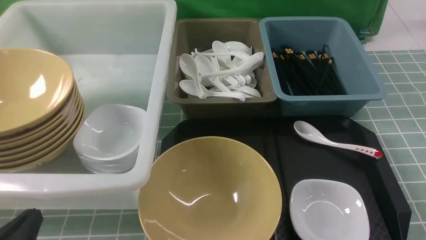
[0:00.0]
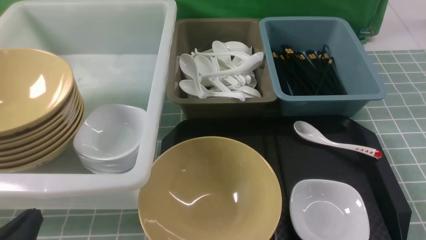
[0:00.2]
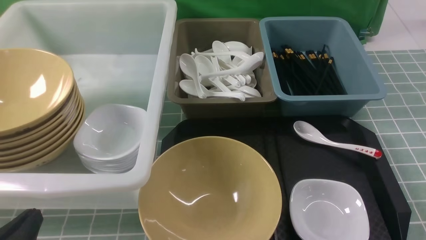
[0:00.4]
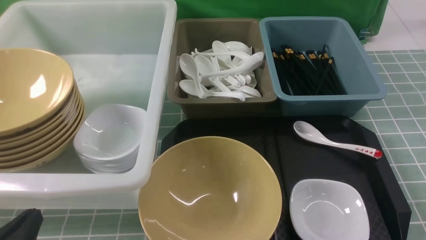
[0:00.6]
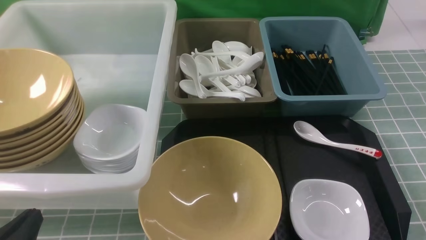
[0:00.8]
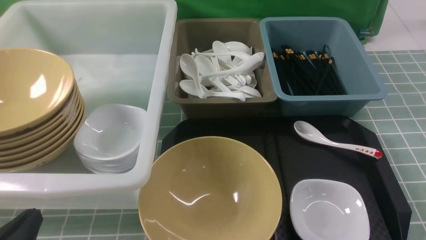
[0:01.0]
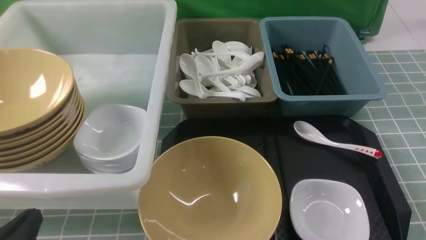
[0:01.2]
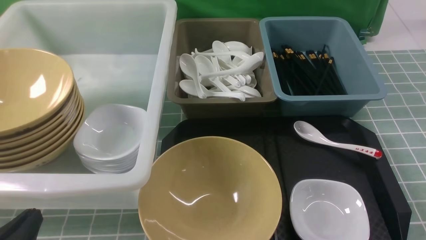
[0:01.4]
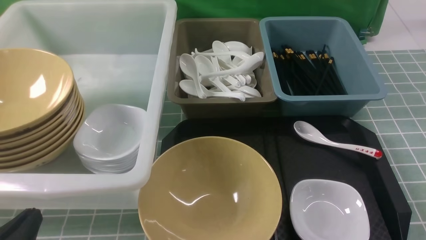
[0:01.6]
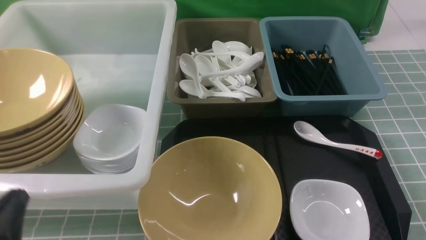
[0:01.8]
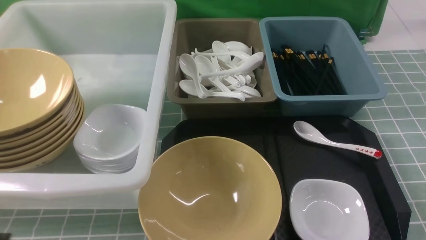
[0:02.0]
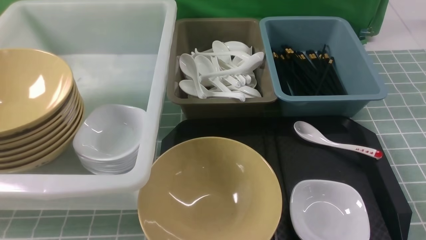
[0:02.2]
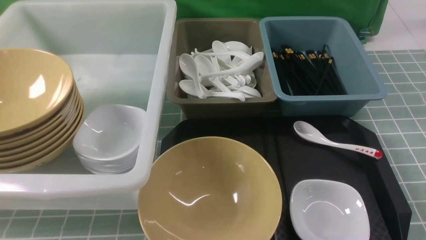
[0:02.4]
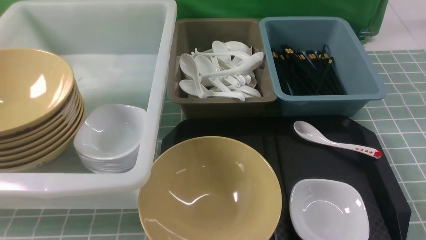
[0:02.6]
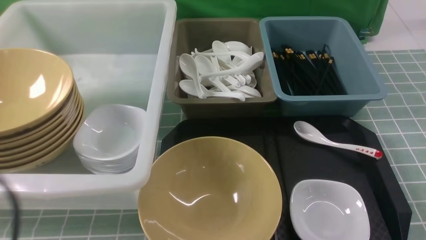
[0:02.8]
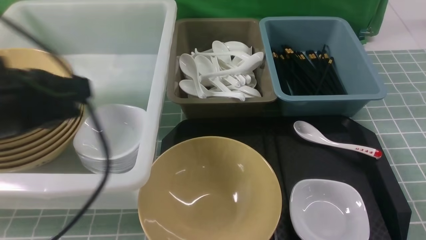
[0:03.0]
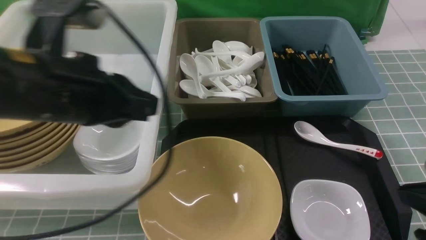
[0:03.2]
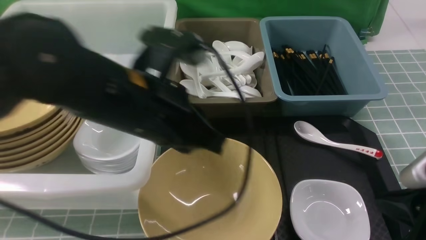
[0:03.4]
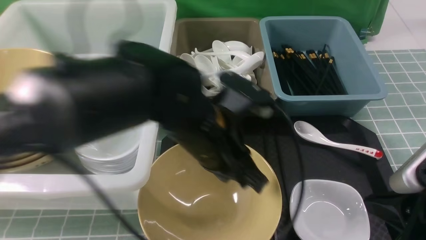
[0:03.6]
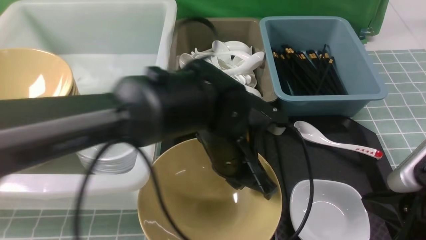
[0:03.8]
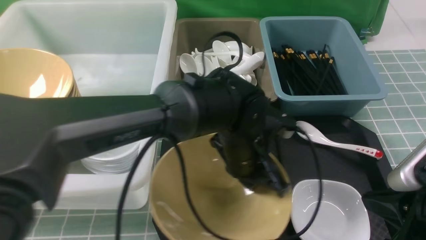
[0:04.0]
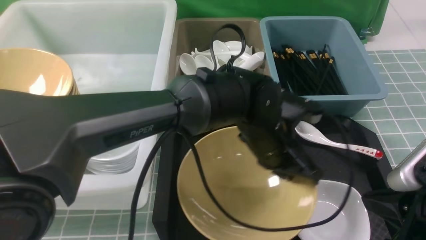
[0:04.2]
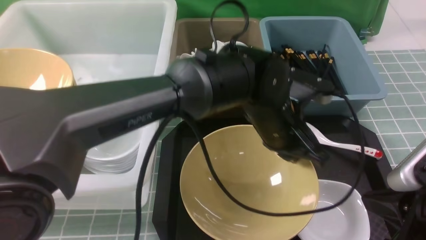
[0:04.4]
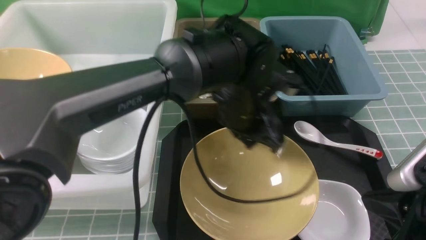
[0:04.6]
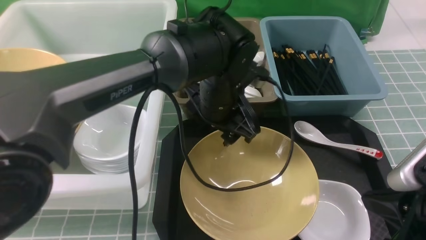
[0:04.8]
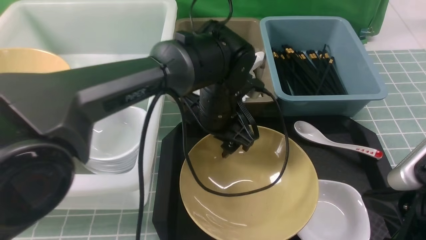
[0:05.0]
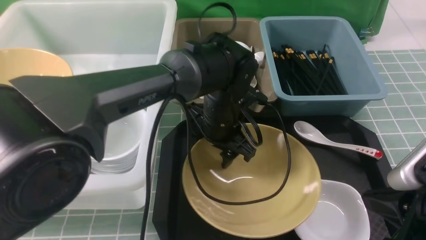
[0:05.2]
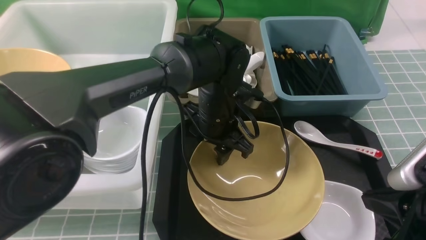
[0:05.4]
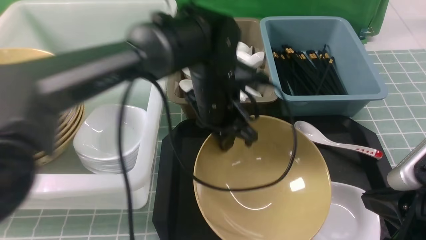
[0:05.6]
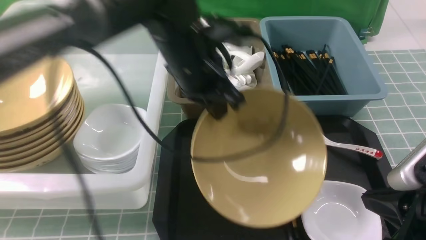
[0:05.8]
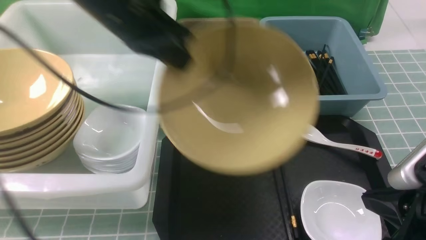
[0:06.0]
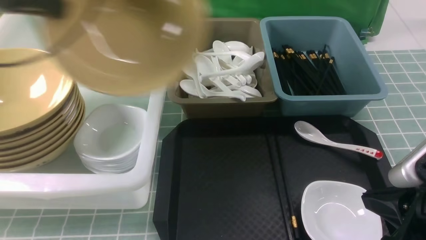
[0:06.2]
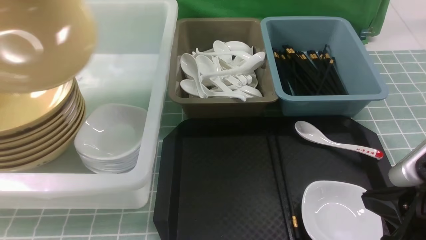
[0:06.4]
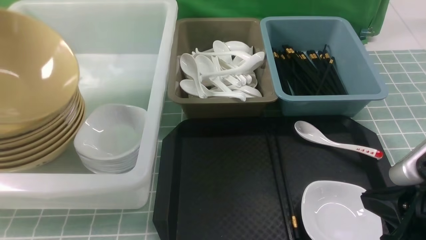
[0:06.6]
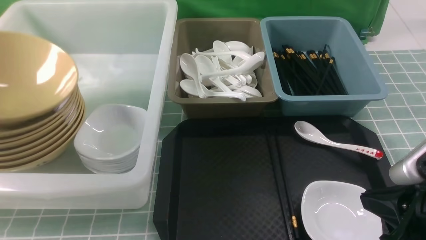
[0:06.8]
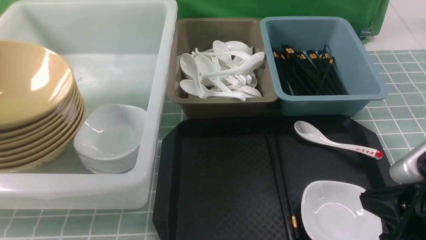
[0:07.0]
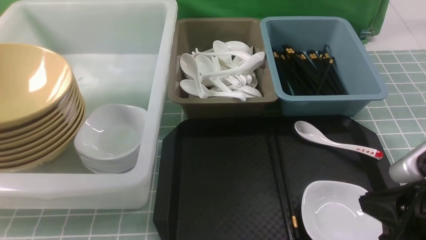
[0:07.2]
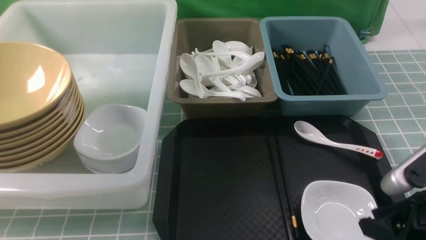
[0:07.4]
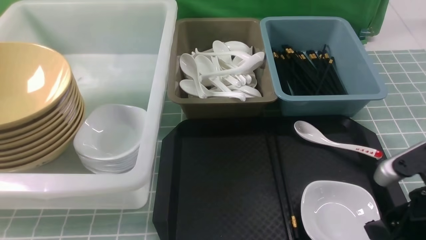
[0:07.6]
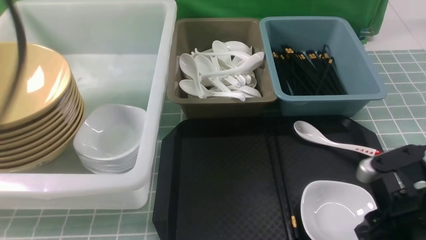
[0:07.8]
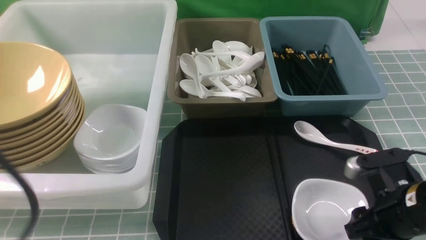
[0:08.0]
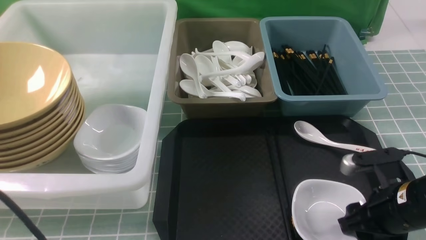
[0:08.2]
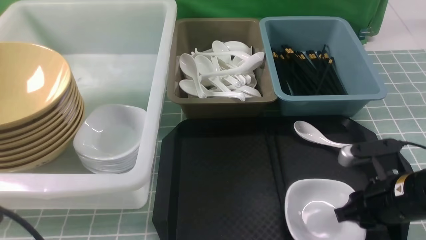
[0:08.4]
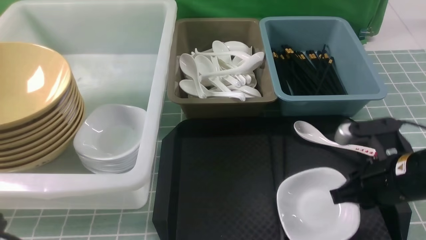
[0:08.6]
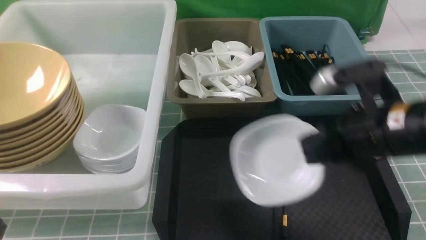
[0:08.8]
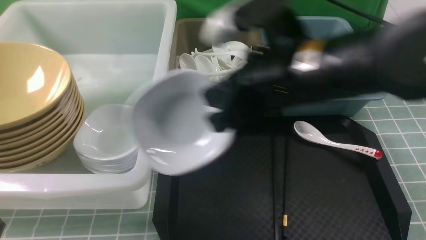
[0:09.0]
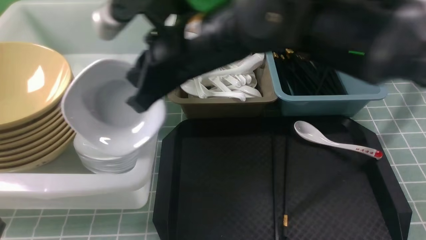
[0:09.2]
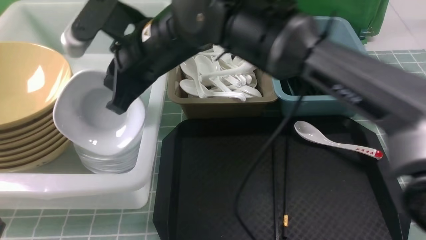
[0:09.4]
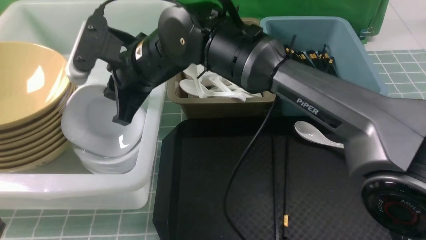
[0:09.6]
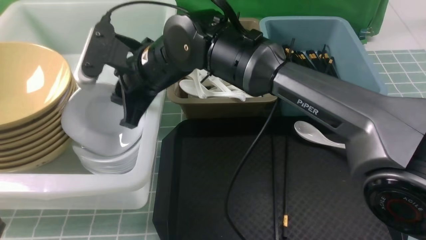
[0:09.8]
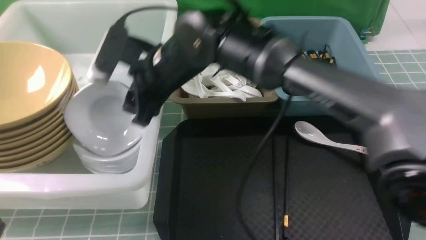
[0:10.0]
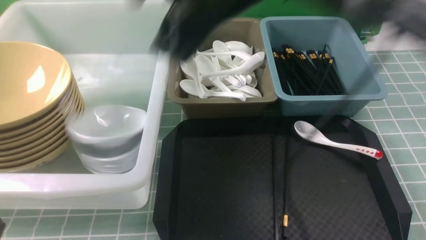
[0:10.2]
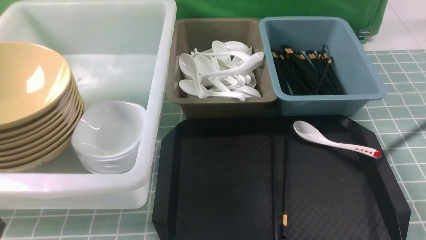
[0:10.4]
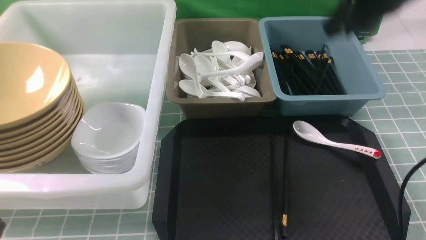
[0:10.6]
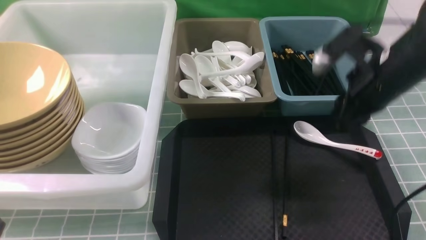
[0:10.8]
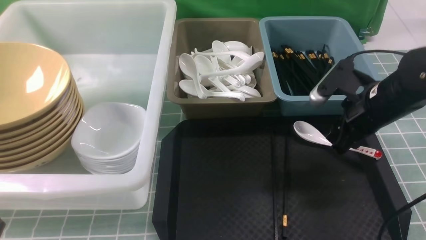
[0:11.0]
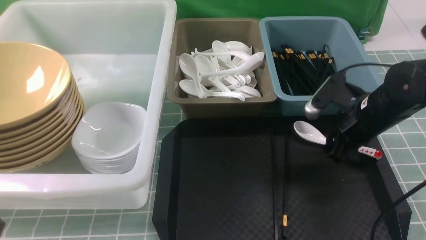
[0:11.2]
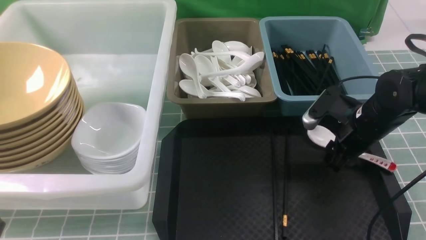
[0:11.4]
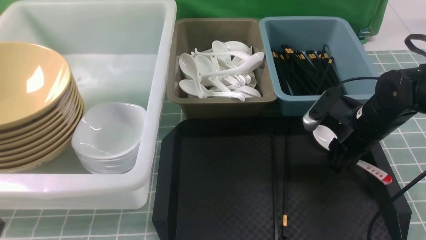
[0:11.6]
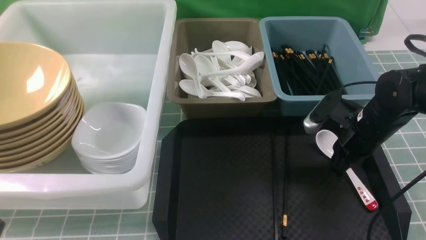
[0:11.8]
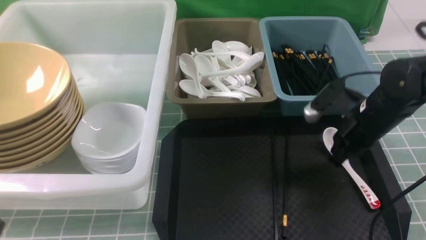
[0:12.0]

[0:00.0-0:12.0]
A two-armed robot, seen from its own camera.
Task of the whole recording: on blue table put chopsticks spoon bowls plates into blue grey white boxes.
Step, 0:00.0 to 0:05.8: use the left arm to grab the yellow noodle bowl on the left.
Step, 0:06.0 to 0:06.8: use the left arm to put the noodle bowl into the large storage box on the left.
Step, 0:07.2 to 0:08.6: use the right arm to grab the plate.
Step, 0:09.0 to 0:10.2: use the right arm to put the plate into the large storage box on the left.
0:01.6 to 0:03.0: The left gripper is displaced upward and forward by approximately 20 cm.
0:03.0 to 0:04.4: The right gripper moves roughly 5 cm, while the left gripper is displaced to the right, downward and forward by about 30 cm.
0:04.4 to 0:06.0: The left gripper is displaced to the left and upward by about 30 cm, and opens, then closes again.
0:06.0 to 0:07.6: The right gripper opens its fingers; the left gripper shifts roughly 20 cm backward, to the left and upward, and opens its fingers.
0:07.6 to 0:09.0: The right gripper is displaced to the left, upward and forward by roughly 25 cm, and closes up; the left gripper moves downward and backward, approximately 20 cm, and closes up.
0:09.0 to 0:10.4: The right gripper moves to the right, forward and upward, approximately 15 cm, and opens its fingers.
0:10.4 to 0:12.0: The right gripper shifts some 25 cm downward, and closes its fingers.

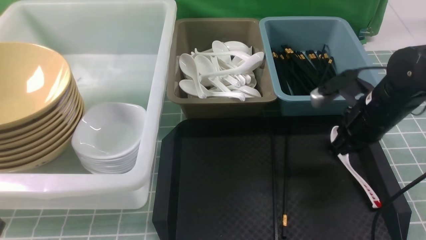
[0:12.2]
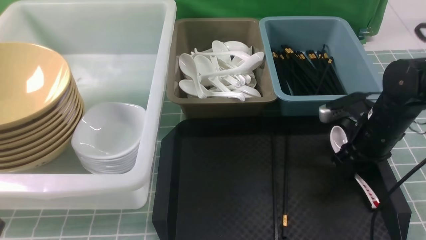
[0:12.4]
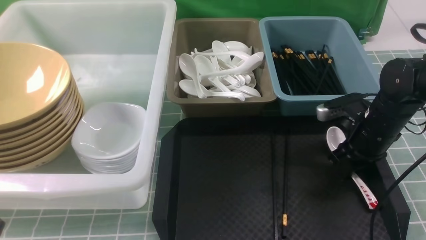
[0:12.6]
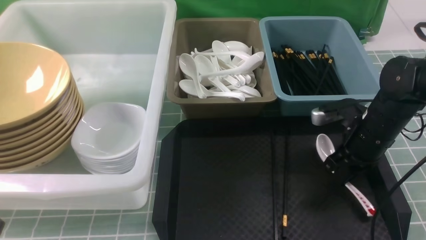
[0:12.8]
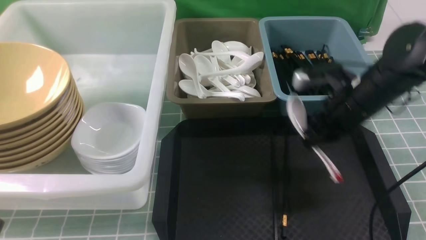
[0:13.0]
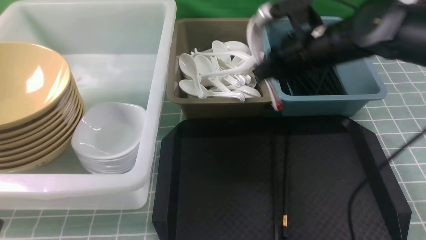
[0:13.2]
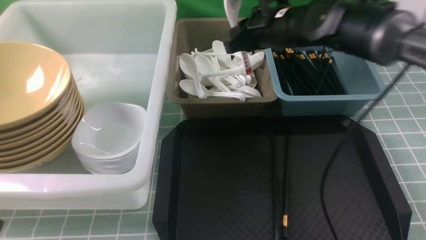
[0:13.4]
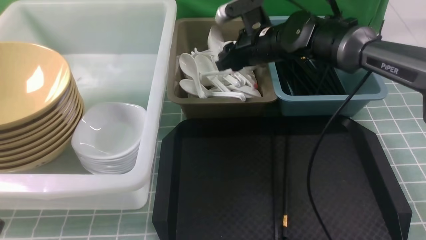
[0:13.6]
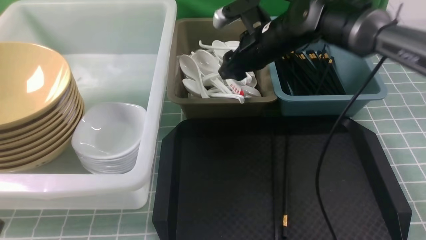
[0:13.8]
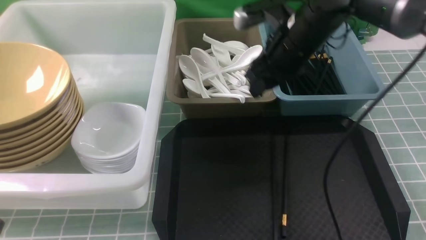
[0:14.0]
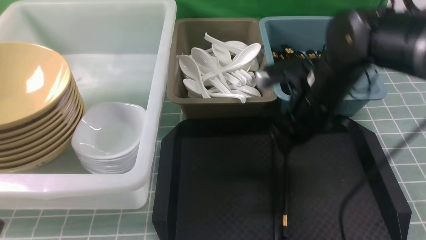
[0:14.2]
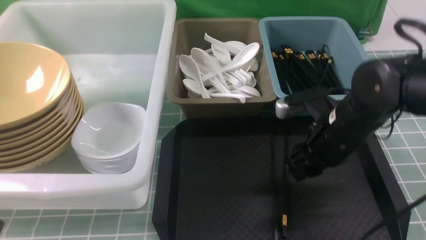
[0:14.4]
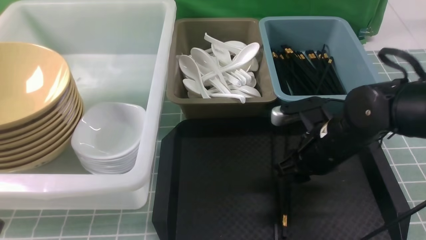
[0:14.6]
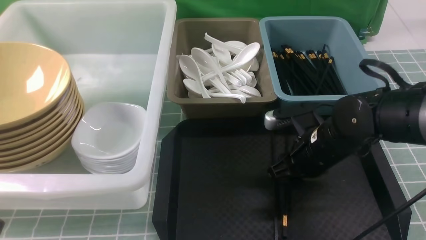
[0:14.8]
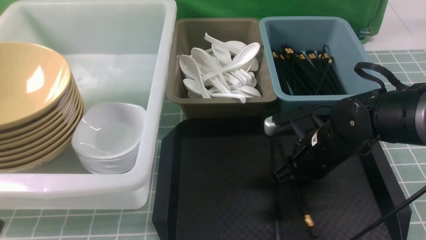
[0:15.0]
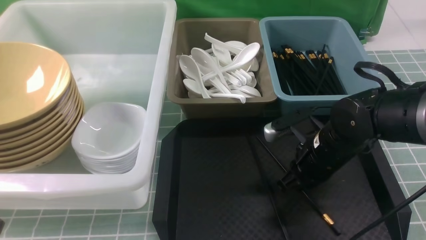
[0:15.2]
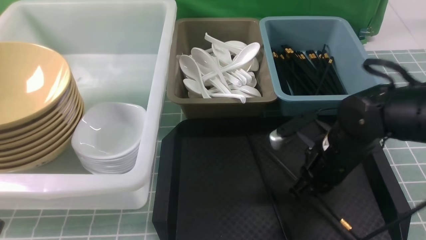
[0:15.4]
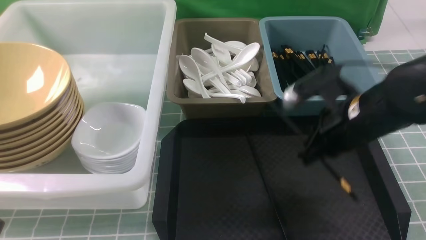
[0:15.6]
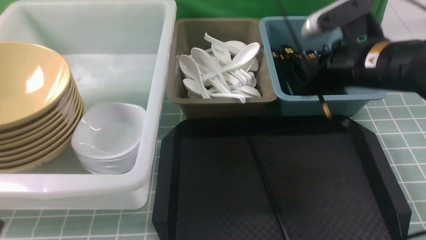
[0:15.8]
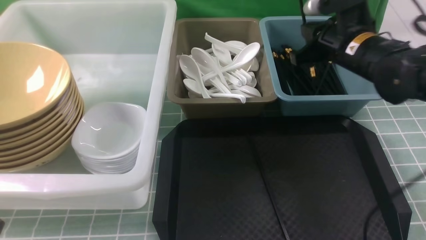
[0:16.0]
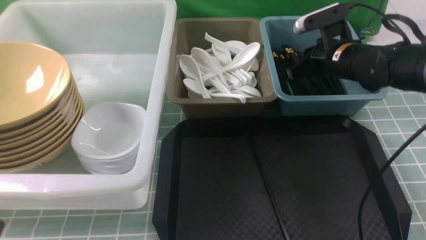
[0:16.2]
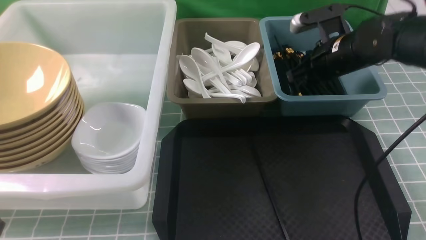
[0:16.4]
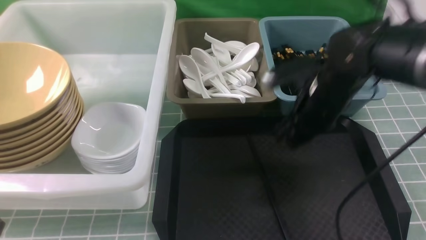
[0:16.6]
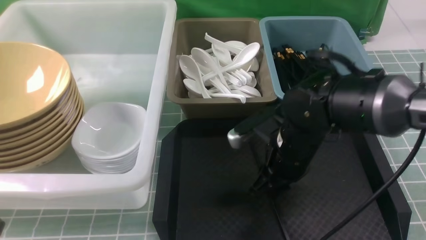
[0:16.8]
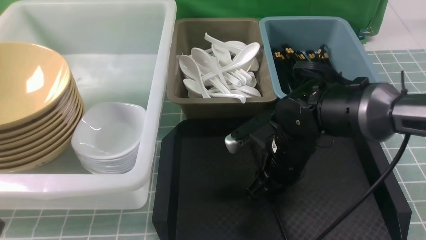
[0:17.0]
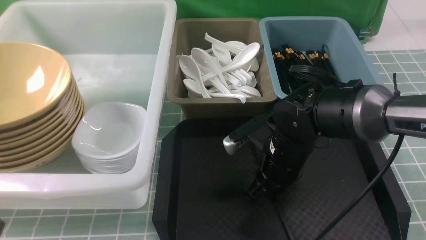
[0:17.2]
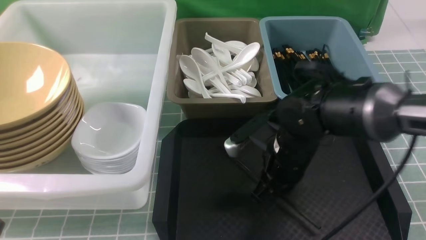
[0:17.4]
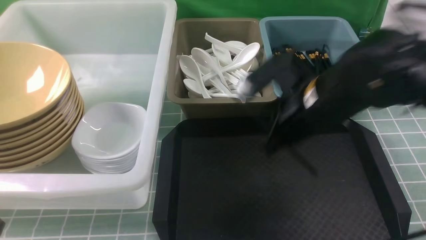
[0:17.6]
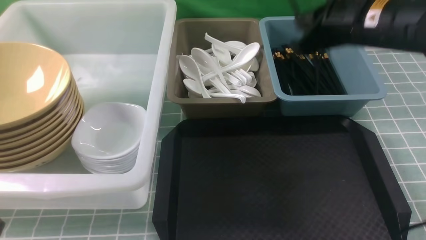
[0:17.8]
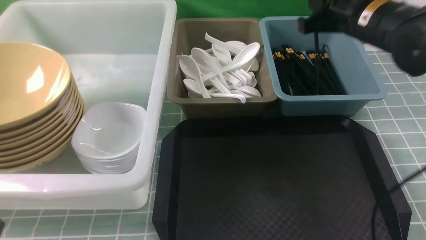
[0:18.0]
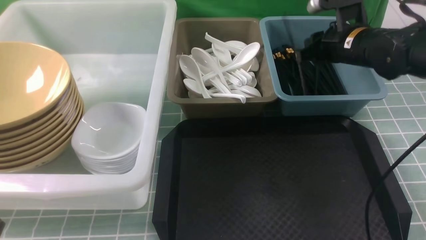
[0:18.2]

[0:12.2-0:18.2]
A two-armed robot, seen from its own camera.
Task of the whole recording: on blue table put chopsticks spoon bowls plates into blue grey white boxes.
Step, 0:13.2 to 0:13.8: use the right arm to put the soup spoon into the small storage box in the middle.
Step, 0:14.0 to 0:15.6: use the right arm to grab a chopstick.
Step, 0:15.8 to 0:16.2: use the right arm to put a chopstick into the small storage box on the right.
Step, 0:16.6 to 0:17.4: use the right arm to grab a chopstick.
0:12.2 to 0:13.8: The right gripper moves to the left, forward and upward, some 20 cm, and opens up.
0:13.8 to 0:15.2: The right gripper goes approximately 20 cm backward, downward and to the right, and closes its fingers.
0:15.2 to 0:16.6: The right gripper opens its fingers.
0:16.6 to 0:18.2: The right gripper heads to the right, upward and forward, covering some 15 cm, and closes, then opens again.
